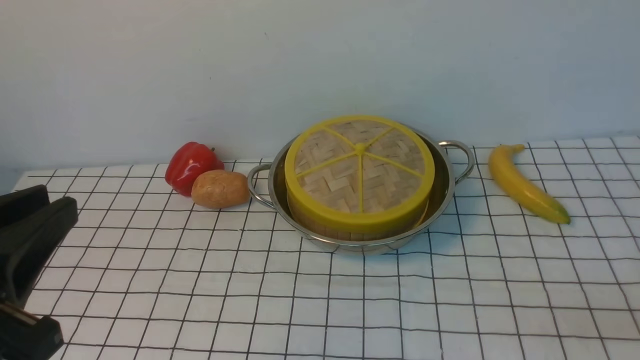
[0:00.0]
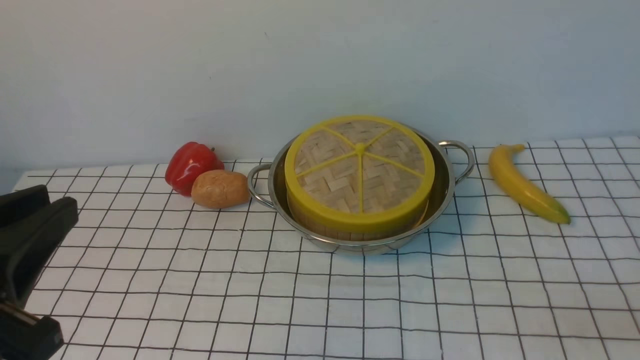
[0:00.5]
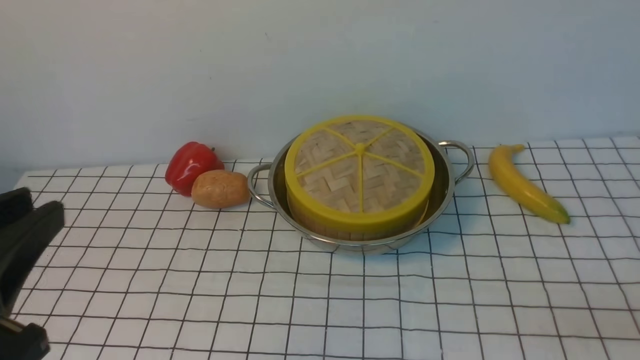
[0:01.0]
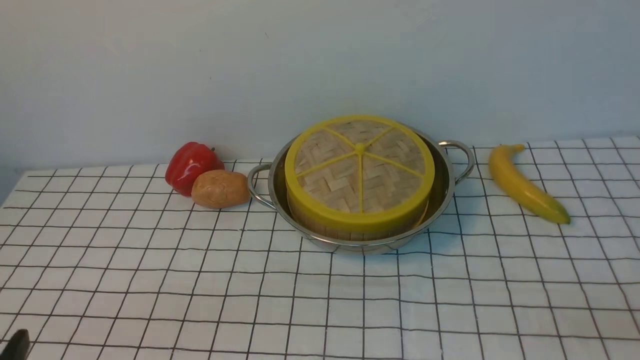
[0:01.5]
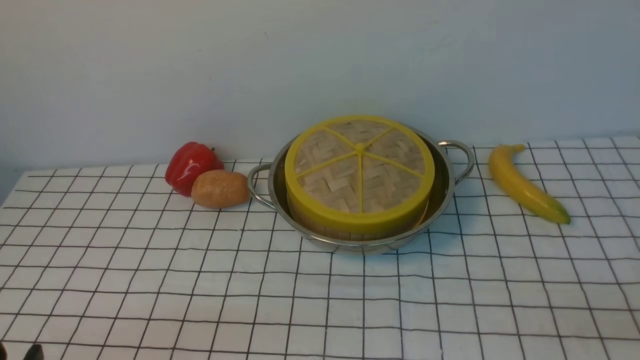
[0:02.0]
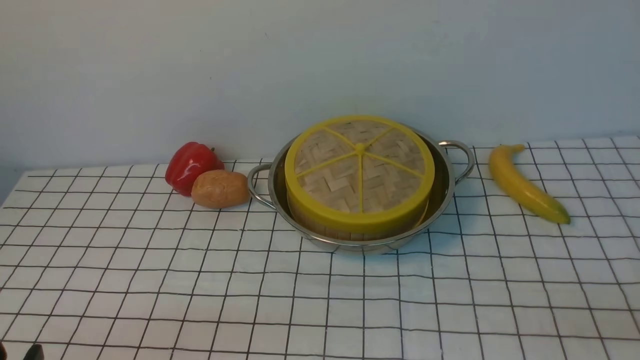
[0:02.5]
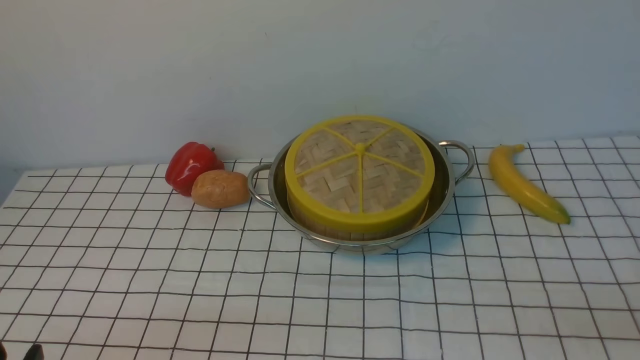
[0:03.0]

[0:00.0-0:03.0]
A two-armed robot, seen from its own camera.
Task of the whole recording: place the steamer in the pot on the white tablecloth, and put the lid on the steamer.
0:00.0 to 0:01.5: The left gripper goes approximately 10 cm downward.

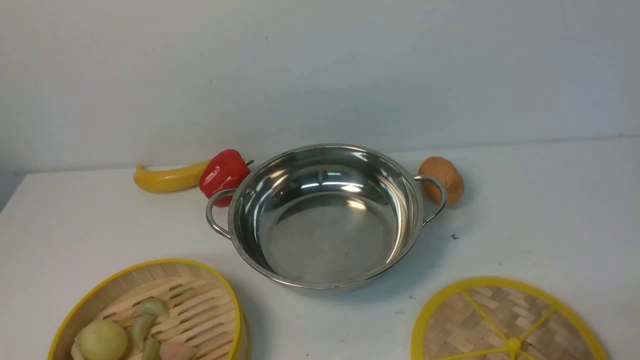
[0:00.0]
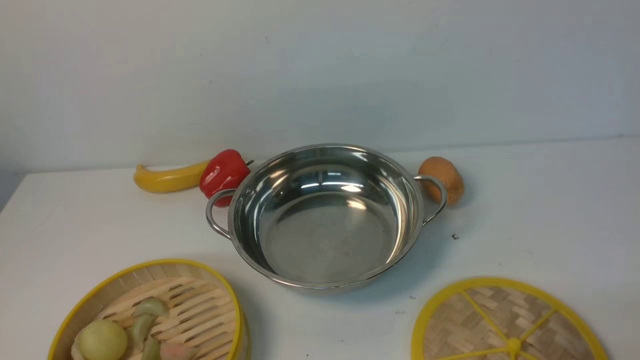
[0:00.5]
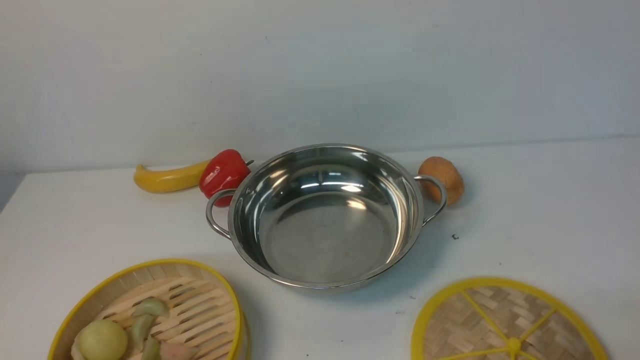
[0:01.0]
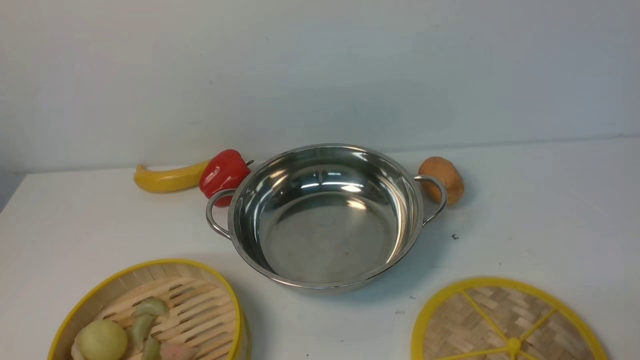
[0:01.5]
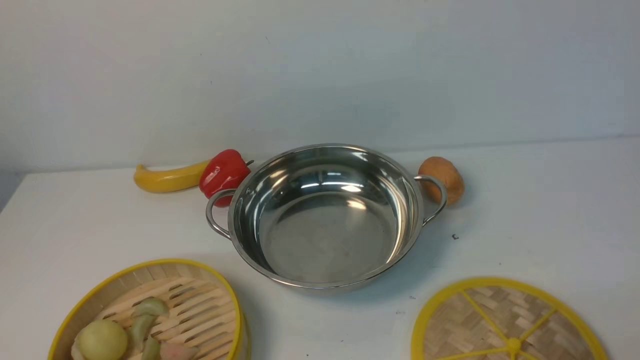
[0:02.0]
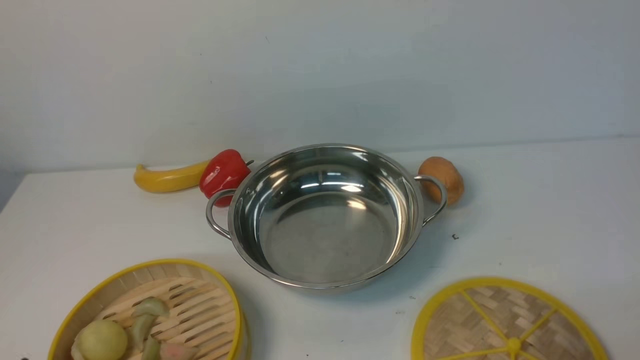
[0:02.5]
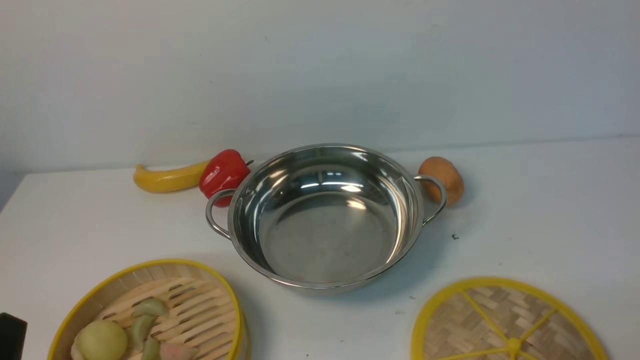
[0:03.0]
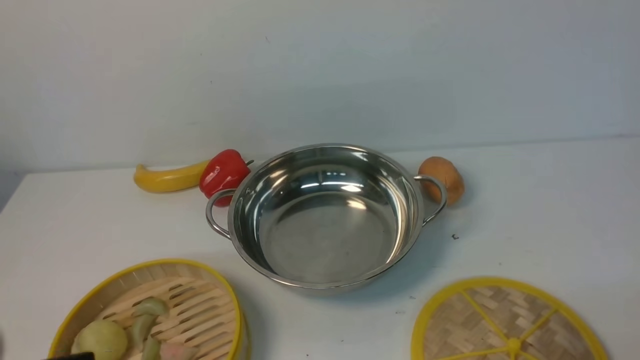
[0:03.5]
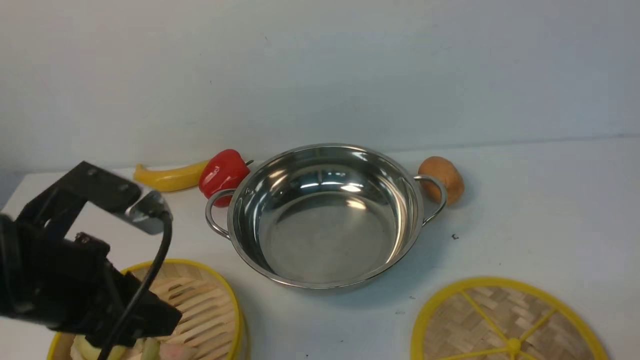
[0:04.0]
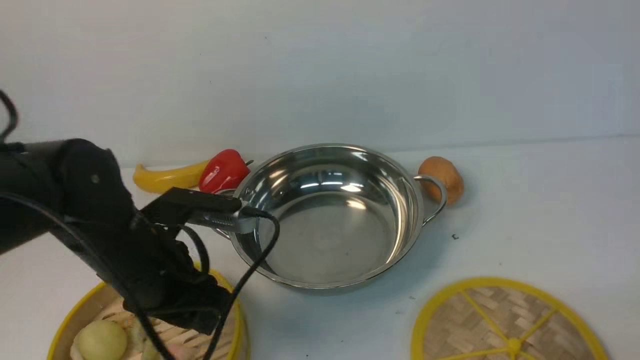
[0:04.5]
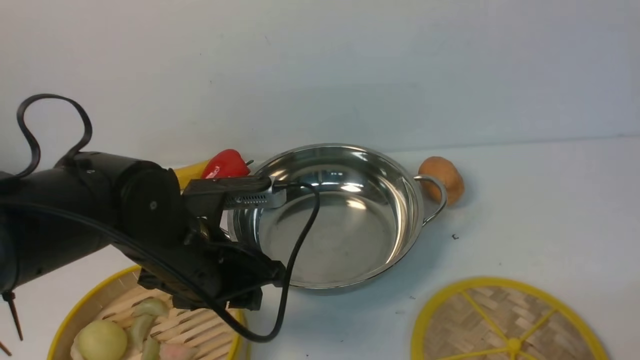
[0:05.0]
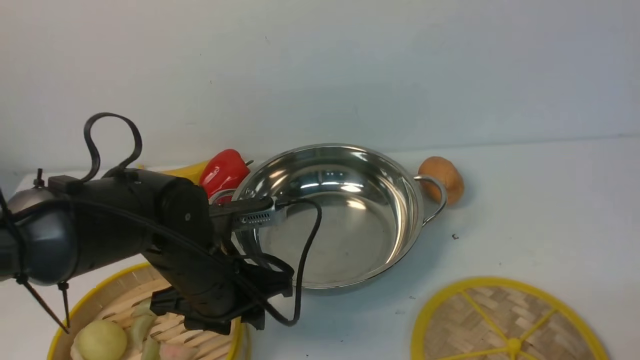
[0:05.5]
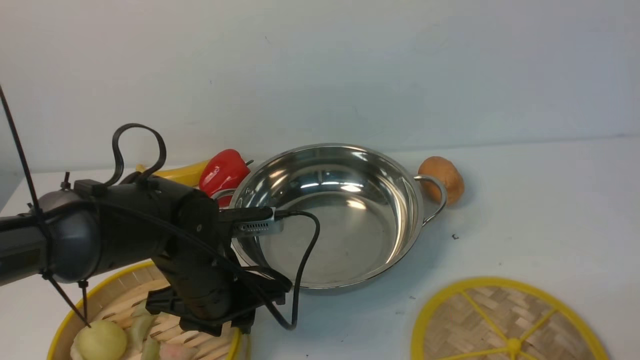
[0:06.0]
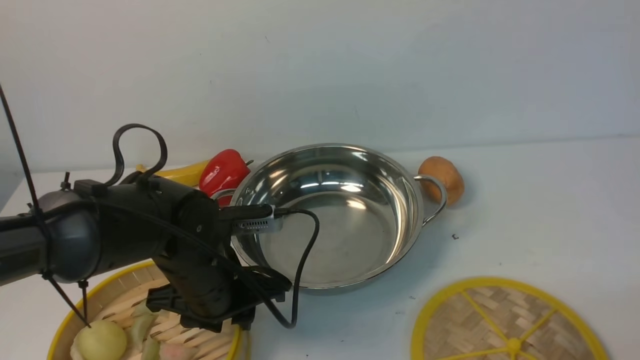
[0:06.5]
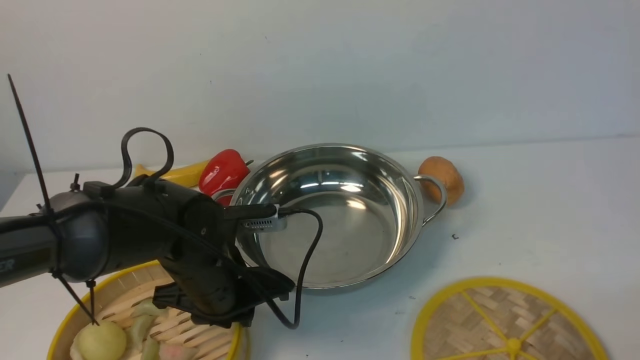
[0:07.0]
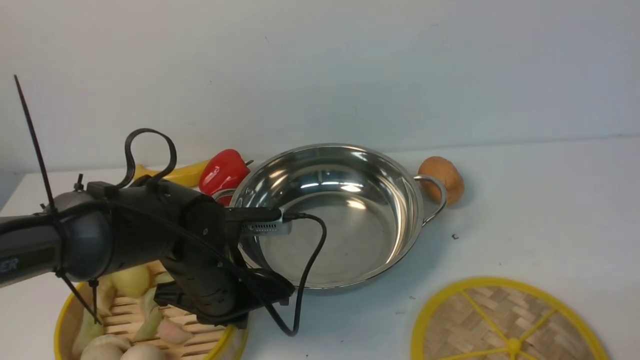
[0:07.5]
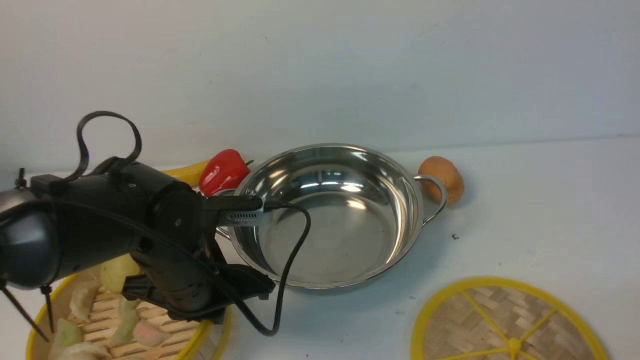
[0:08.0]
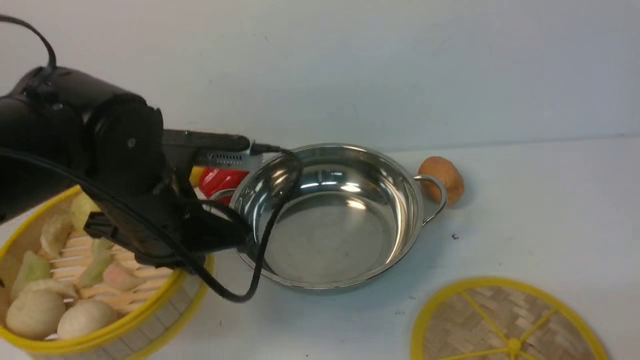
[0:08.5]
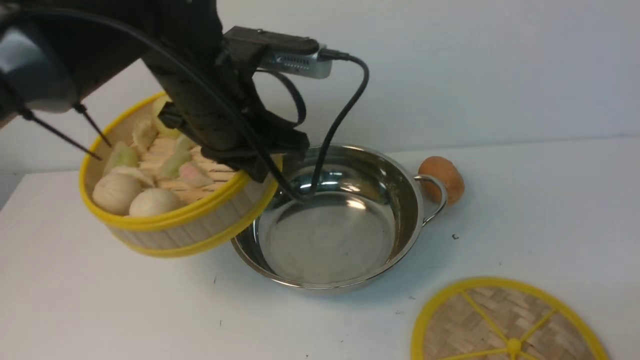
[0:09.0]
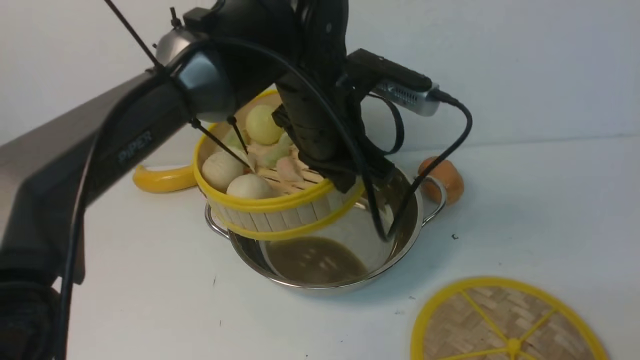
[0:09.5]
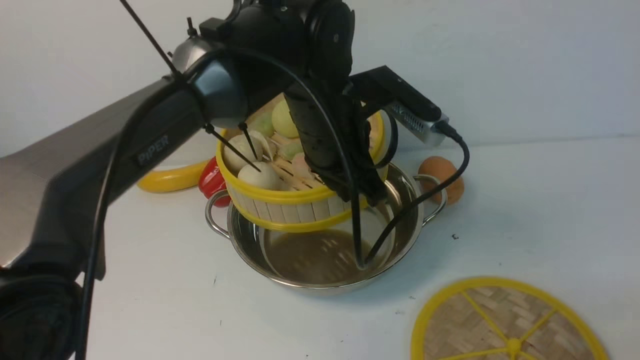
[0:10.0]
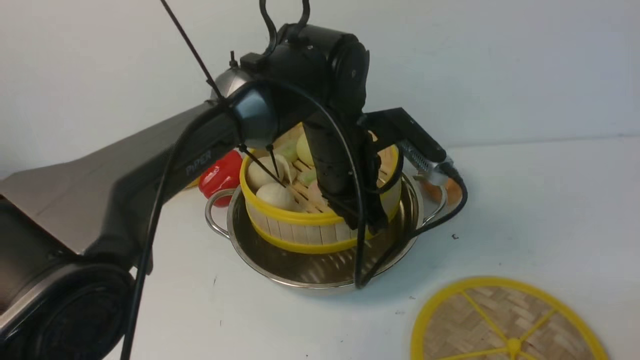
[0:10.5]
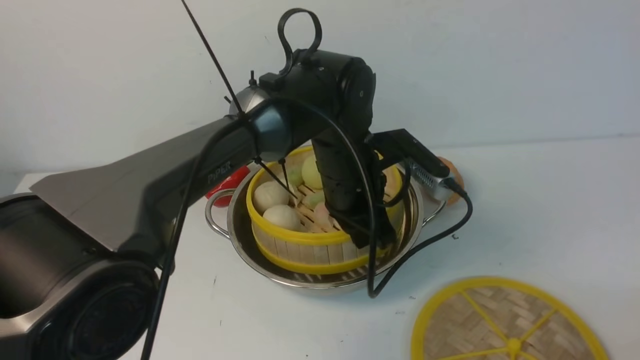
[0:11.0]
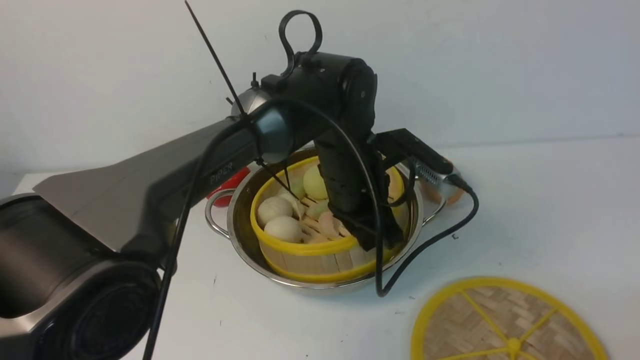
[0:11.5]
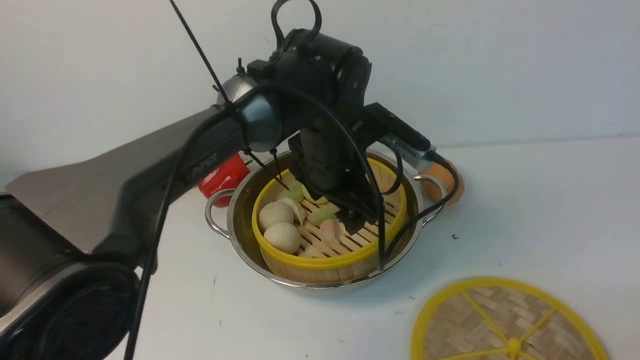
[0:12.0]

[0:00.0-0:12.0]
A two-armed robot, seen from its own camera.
Task of the whole recording: place the steamer in the pot on the white table, and put the lid on the steamer.
Step, 0:00.0 to 0:08.0: use the left arm to lift the steamer closest to it.
0:02.0 to 0:04.0: The left gripper travels forward and upward by roughly 20 cm.
0:04.0 to 0:06.0: The left gripper heads downward, to the right and forward, covering roughly 15 cm.
0:06.0 to 0:08.0: The left gripper closes its fingers.
0:08.0 to 0:10.0: The left gripper heads to the right, forward and upward, covering some 20 cm.
0:10.0 to 0:12.0: The left gripper opens.

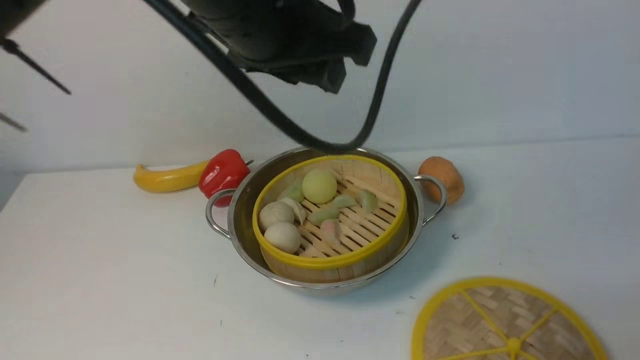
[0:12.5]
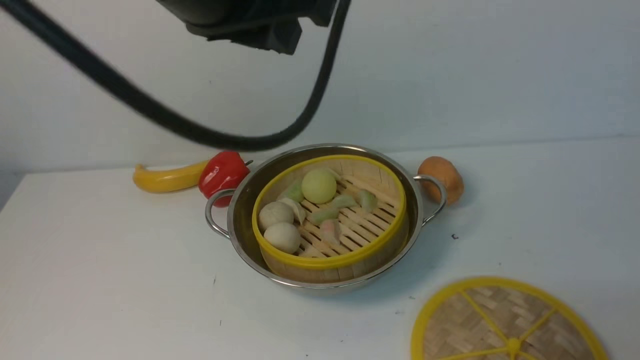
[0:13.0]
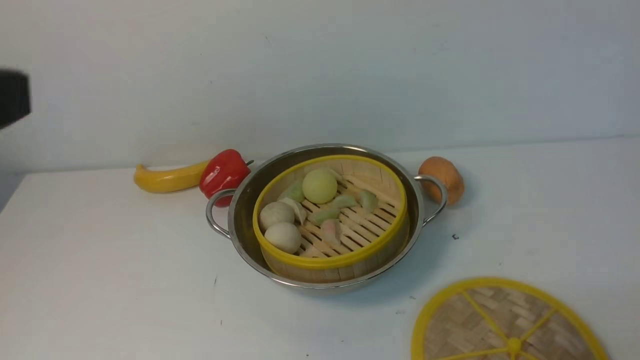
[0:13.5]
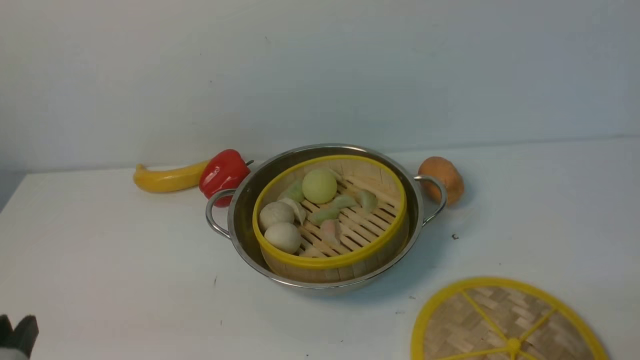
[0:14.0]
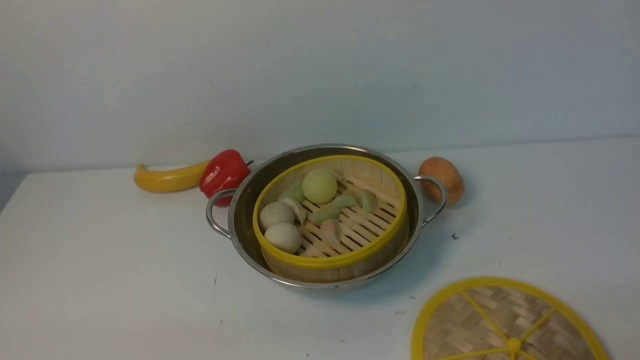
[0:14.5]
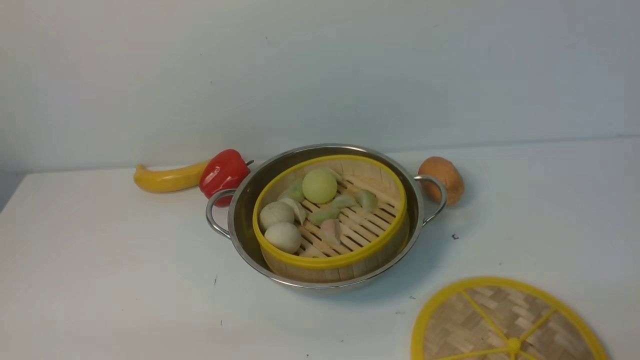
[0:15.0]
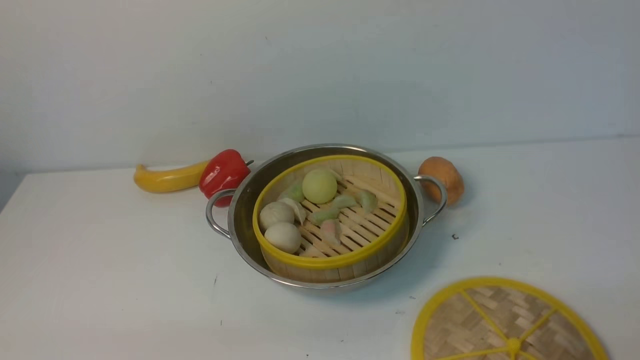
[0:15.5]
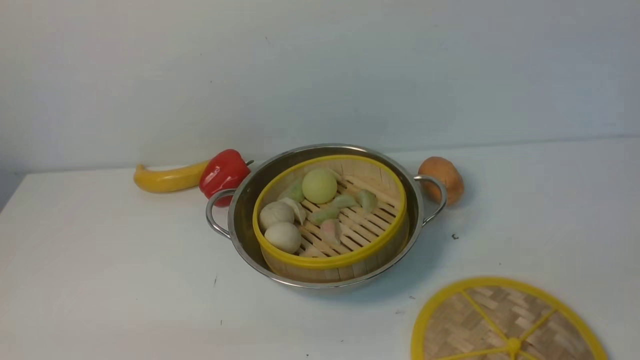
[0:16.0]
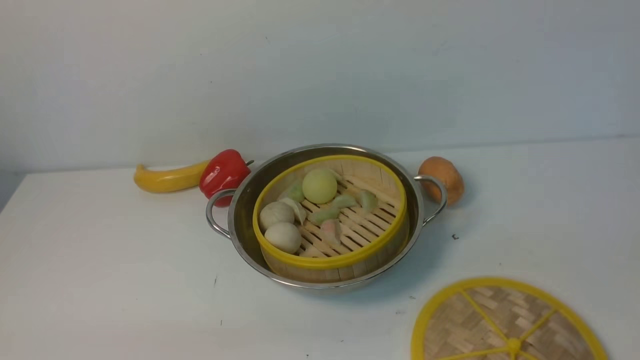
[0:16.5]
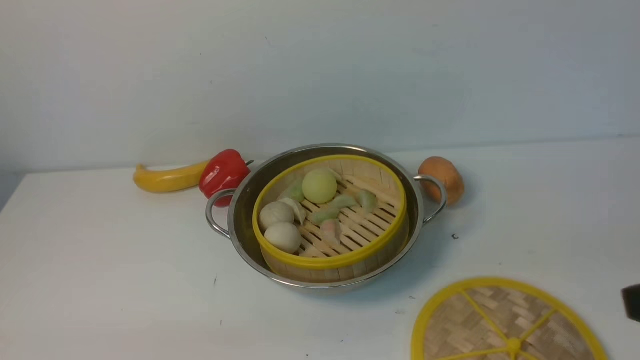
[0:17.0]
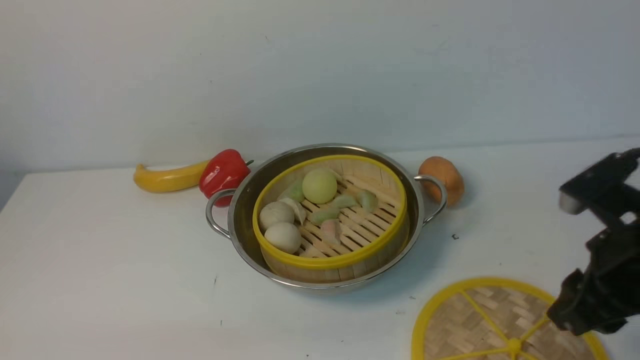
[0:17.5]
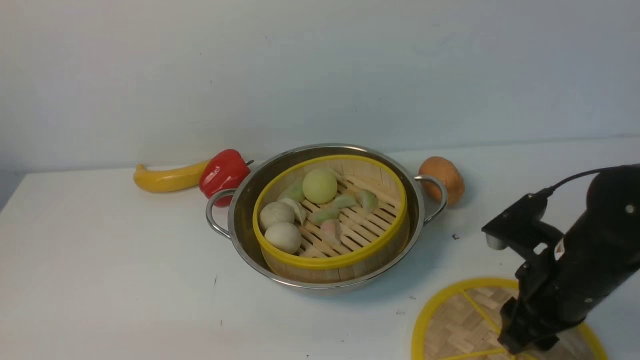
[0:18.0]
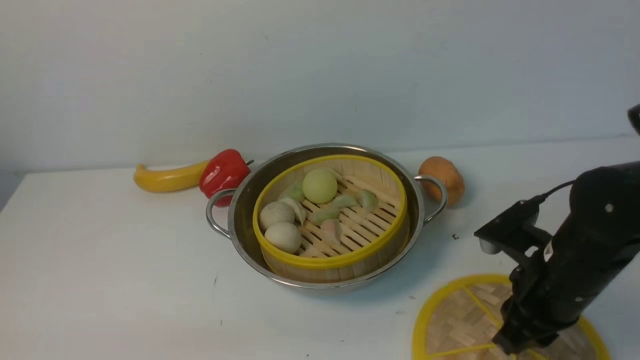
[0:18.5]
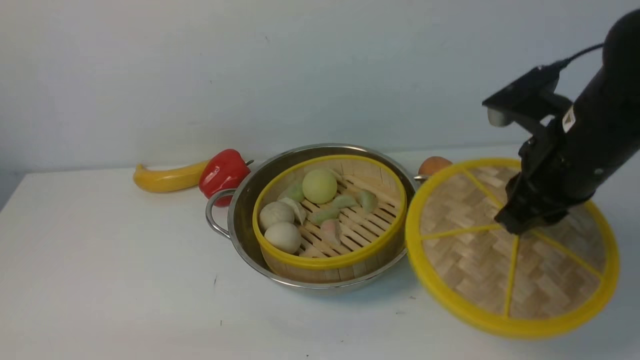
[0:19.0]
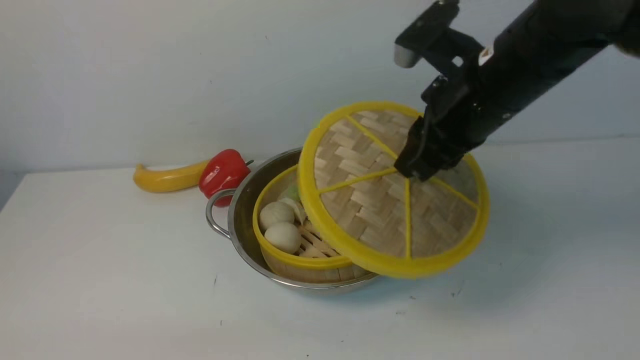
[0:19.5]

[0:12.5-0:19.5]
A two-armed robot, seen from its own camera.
Task of the whole recording: place the steamer in the pot on the white table, and put the lid on the steamer.
Step, 0:13.0 to 0:18.5: use the right arm to lift the lid of the steamer.
0:12.5 to 0:14.5: The left gripper travels downward, backward and to the left by about 40 cm, and closes.
0:16.0 to 0:17.5: The right gripper goes roughly 20 cm forward.
0:17.5 to 0:19.5: The right gripper shifts about 20 cm to the left, forward and upward, and closes.
